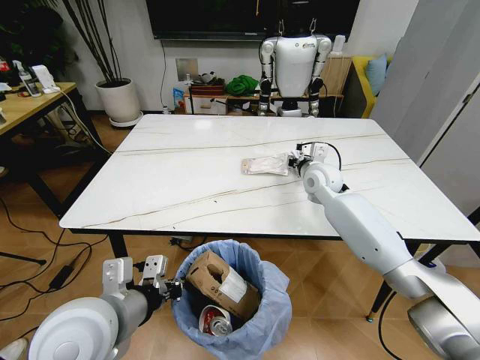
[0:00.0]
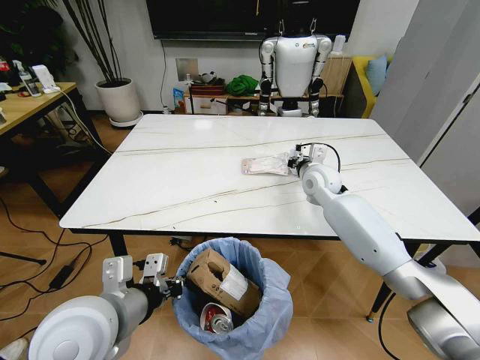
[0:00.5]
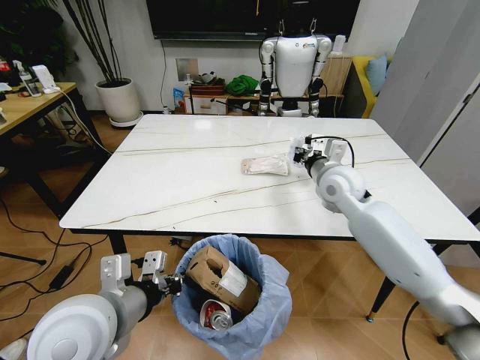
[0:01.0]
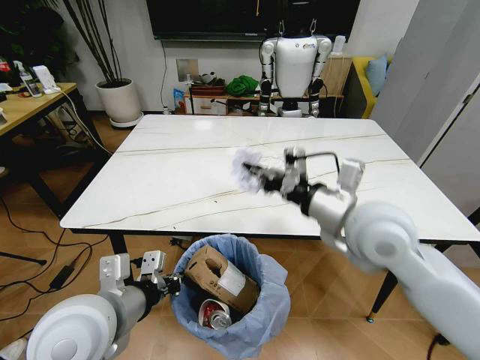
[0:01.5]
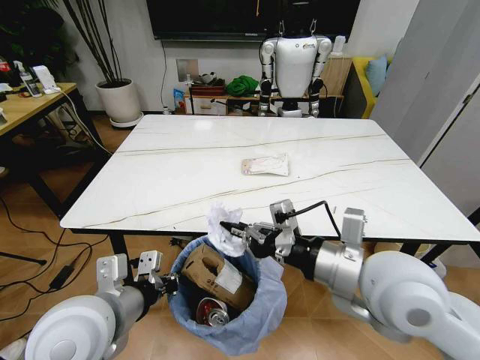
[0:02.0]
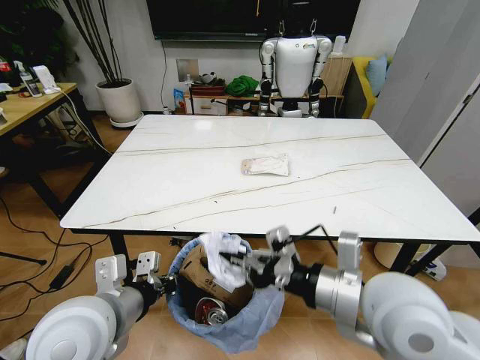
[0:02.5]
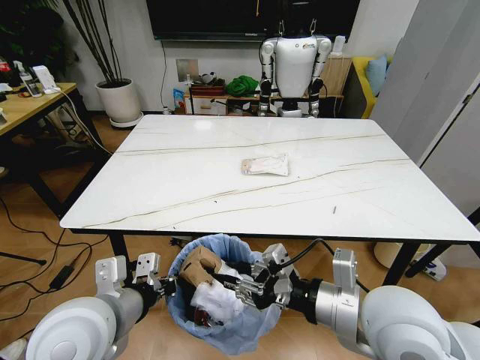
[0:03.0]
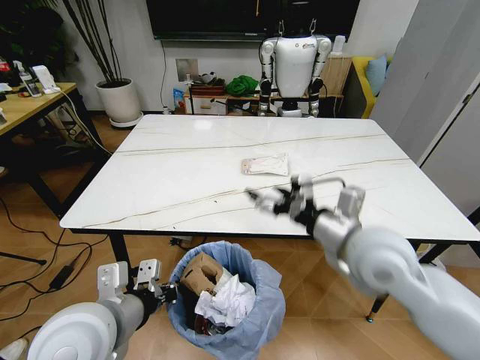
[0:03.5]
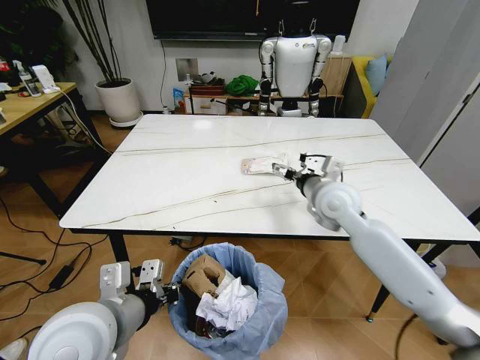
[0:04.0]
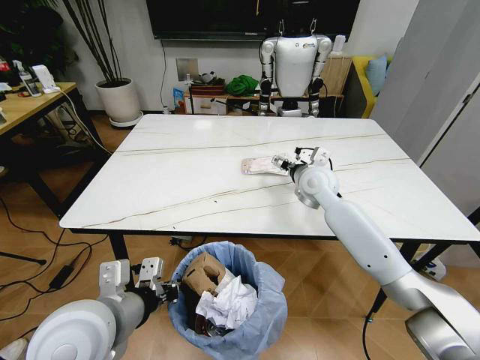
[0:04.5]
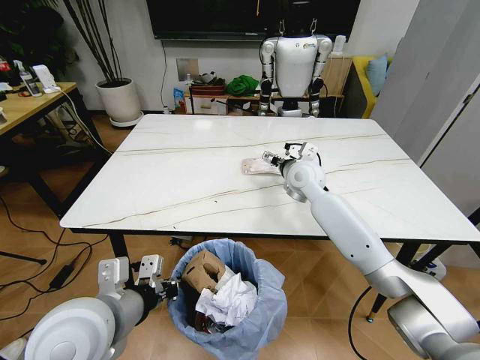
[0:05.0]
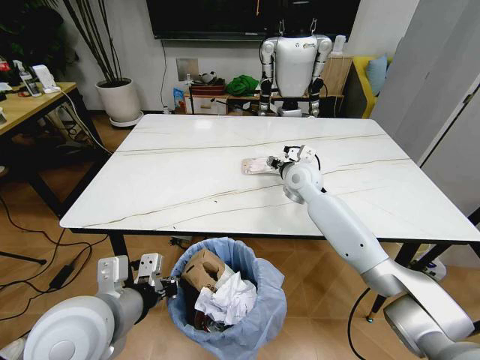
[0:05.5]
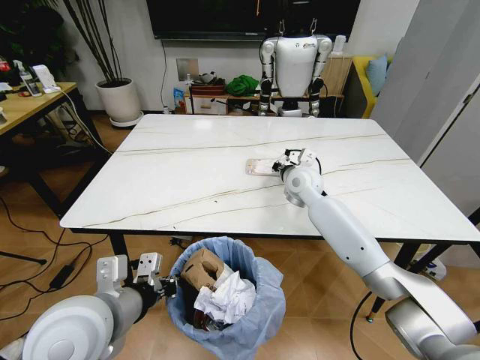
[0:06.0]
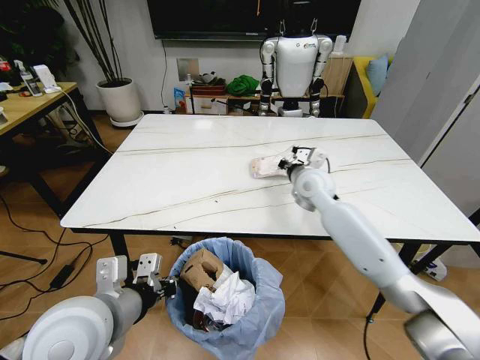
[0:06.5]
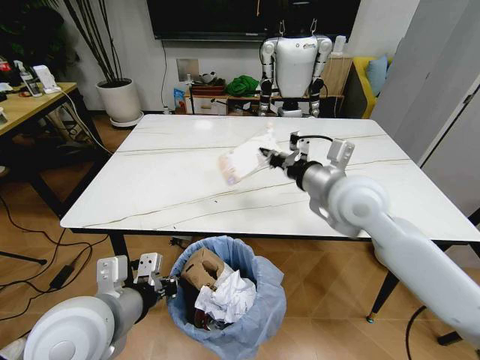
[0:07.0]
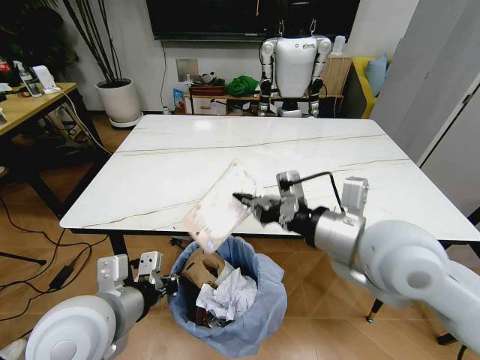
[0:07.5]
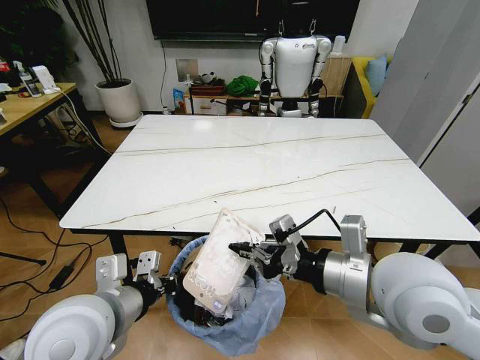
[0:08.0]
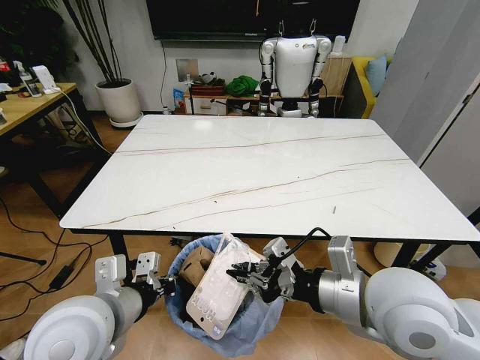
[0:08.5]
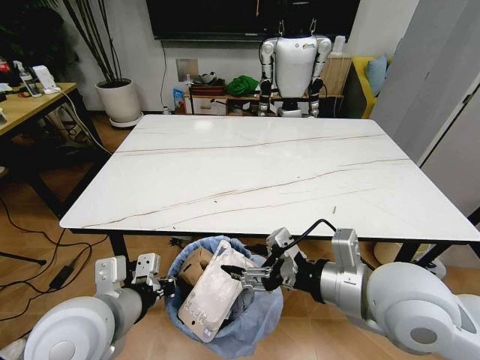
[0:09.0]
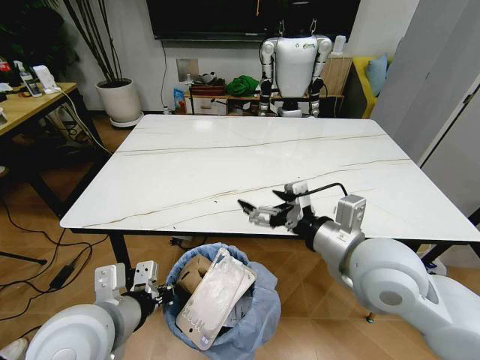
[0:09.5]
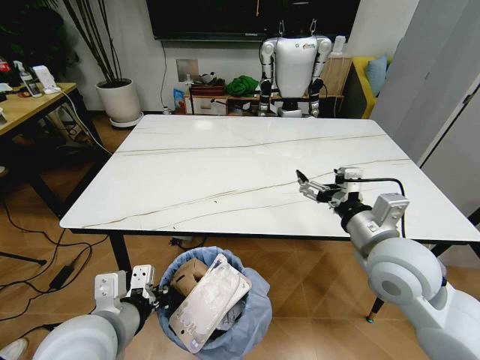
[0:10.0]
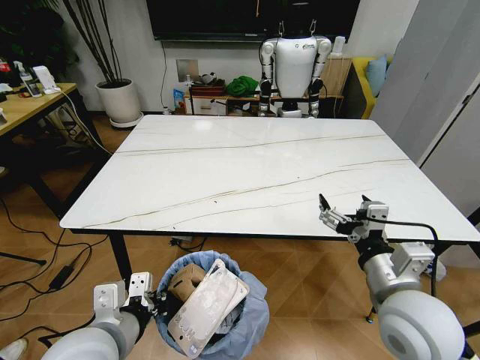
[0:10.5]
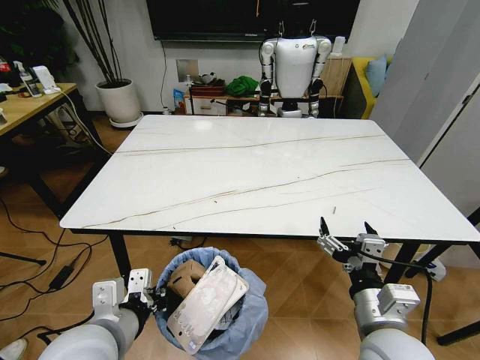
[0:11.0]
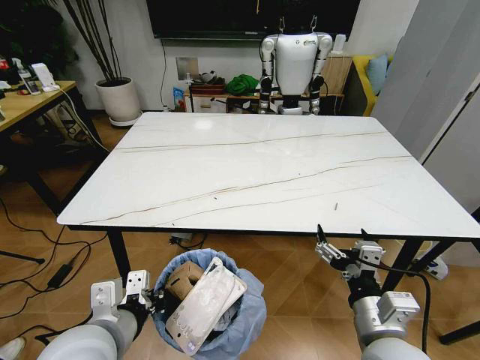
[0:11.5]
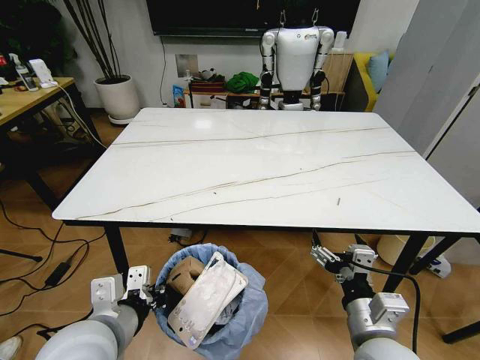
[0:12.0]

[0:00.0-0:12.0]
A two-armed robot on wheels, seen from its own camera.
Task of the whole recording: Pick up the trash bin and place the trash from the table into it.
0:00.0 to 0:02.0: The right gripper heads backward, covering approximately 30 cm, and closes.
0:02.0 to 0:04.0: The right gripper moves forward, approximately 20 cm, and opens up.
0:04.0 to 0:06.0: The right gripper travels forward by roughly 10 cm, and closes its fingers.
0:06.0 to 0:08.0: The right gripper is displaced backward by some 35 cm.
0:08.0 to 0:10.0: The right gripper shifts about 5 cm forward, and opens its fingers.
0:10.0 to 0:12.0: The right gripper goes about 15 cm backward and downward.

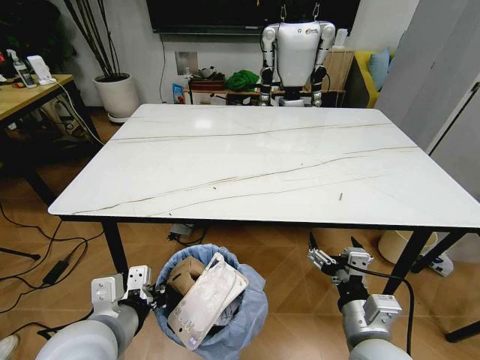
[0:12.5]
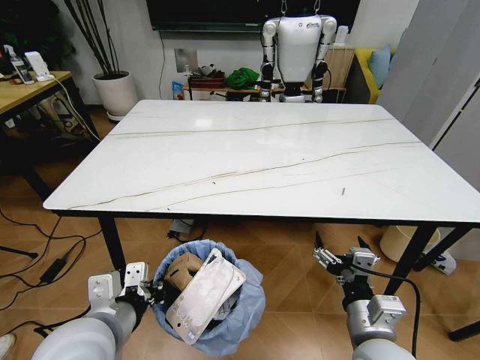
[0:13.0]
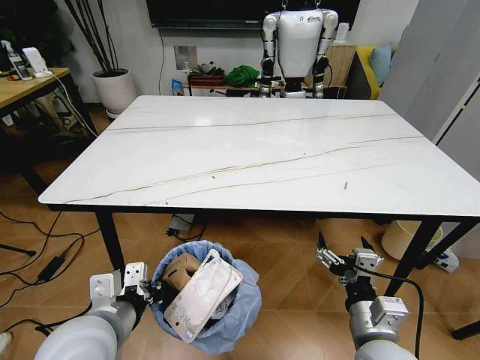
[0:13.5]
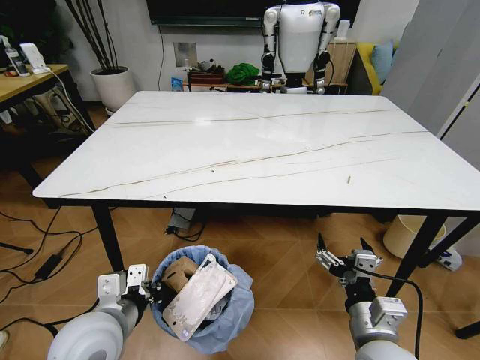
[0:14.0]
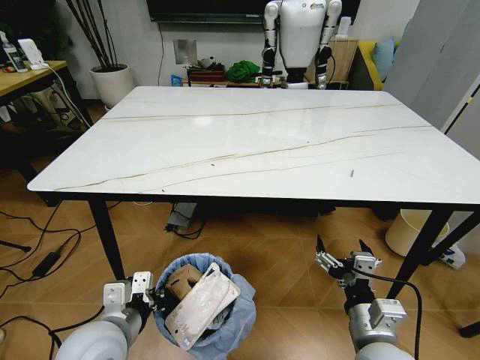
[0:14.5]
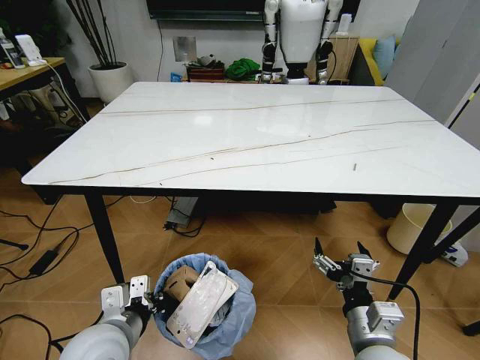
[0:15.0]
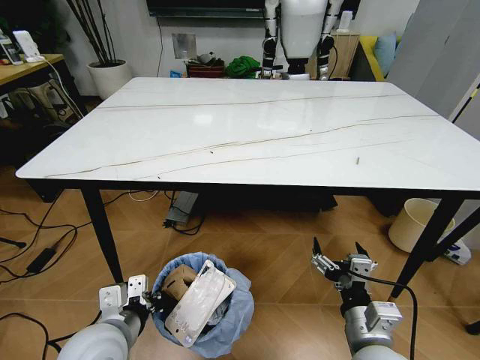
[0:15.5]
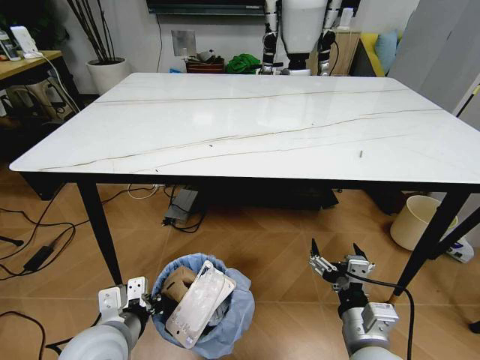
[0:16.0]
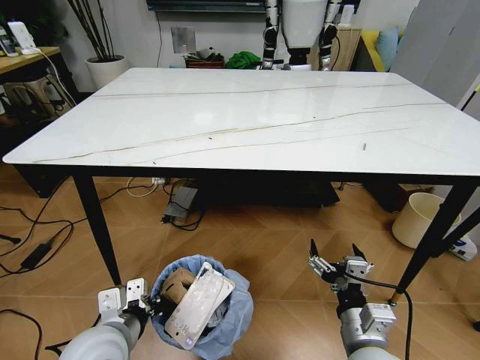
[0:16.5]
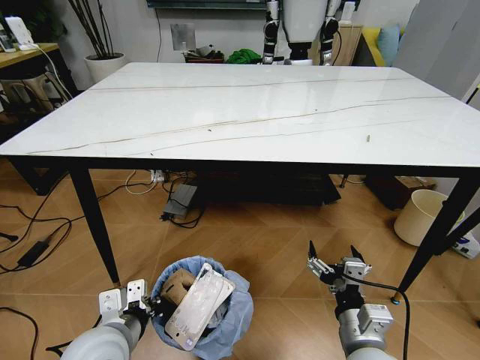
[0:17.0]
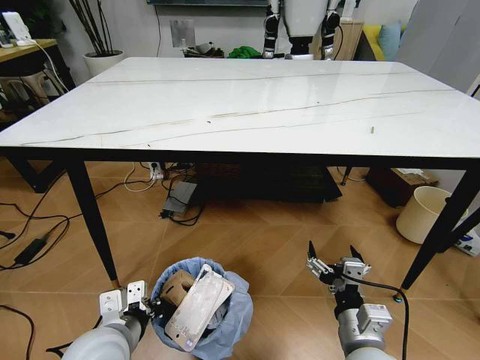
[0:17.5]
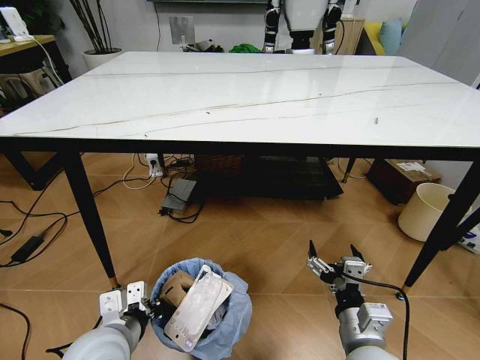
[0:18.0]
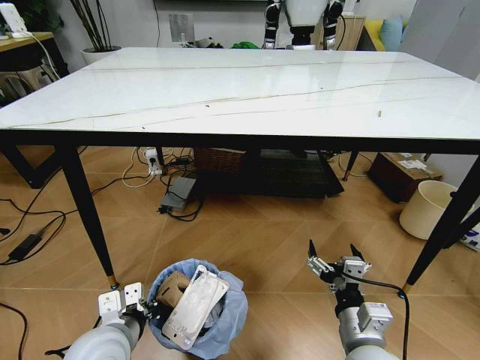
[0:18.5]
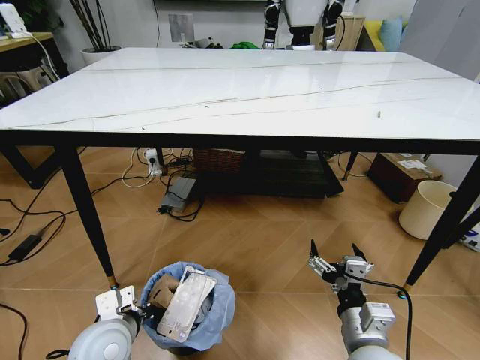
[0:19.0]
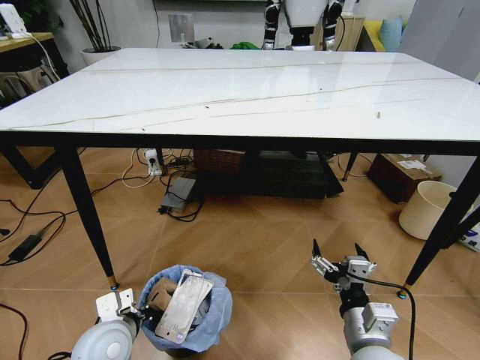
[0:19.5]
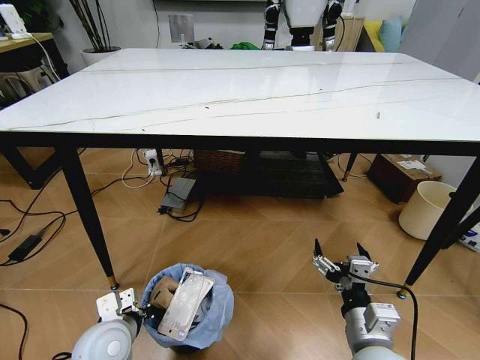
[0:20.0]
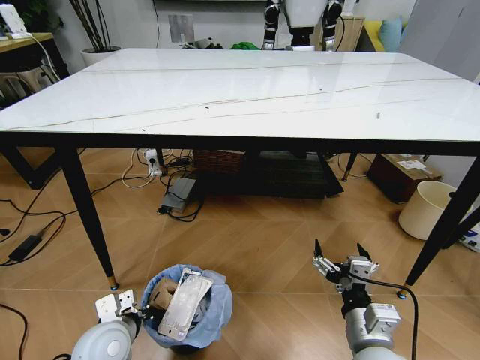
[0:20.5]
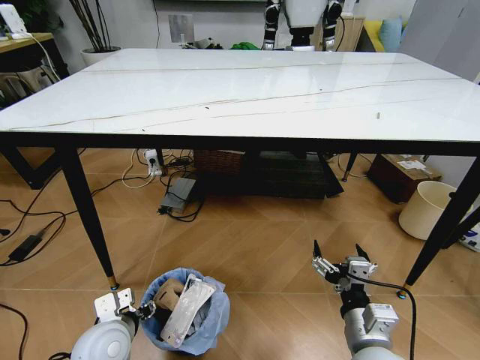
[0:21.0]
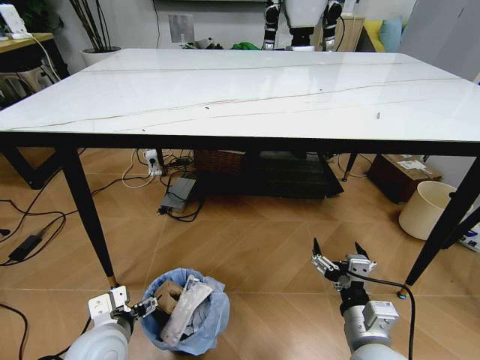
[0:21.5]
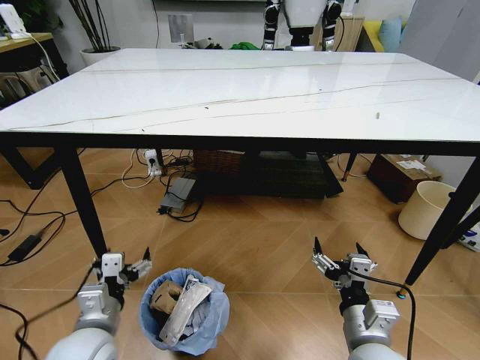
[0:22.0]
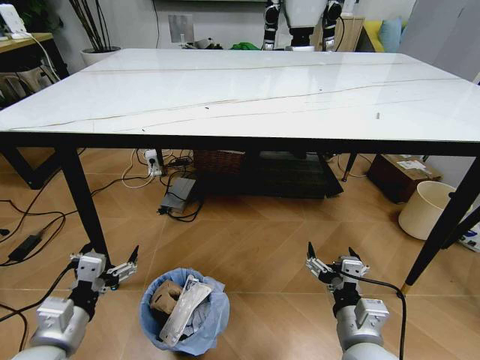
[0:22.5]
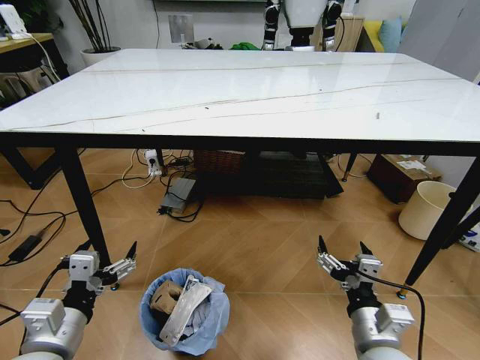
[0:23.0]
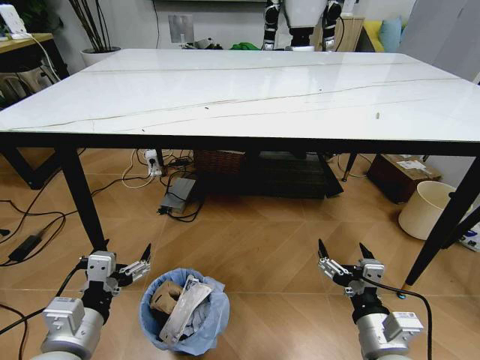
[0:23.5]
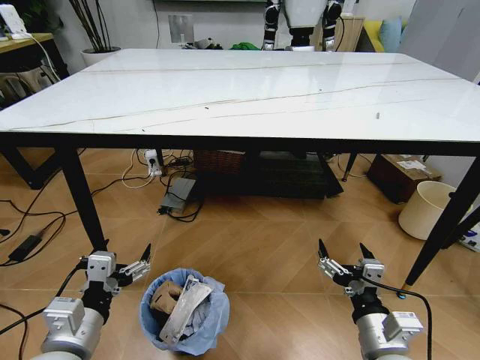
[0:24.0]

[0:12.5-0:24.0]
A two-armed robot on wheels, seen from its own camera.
Task of the whole recording: Pick up the trash bin and place the trash from the table into it.
0:12.5 to 0:14.5: The left gripper moves downward, approximately 5 cm.
0:18.5 to 0:20.0: The left gripper goes some 5 cm downward.
0:20.0 to 0:22.0: The left gripper opens.
0:22.0 to 0:24.0: The left gripper shifts some 5 cm upward.
